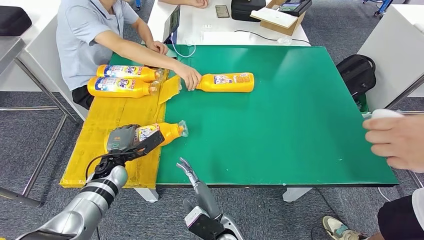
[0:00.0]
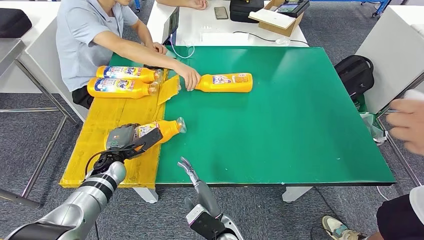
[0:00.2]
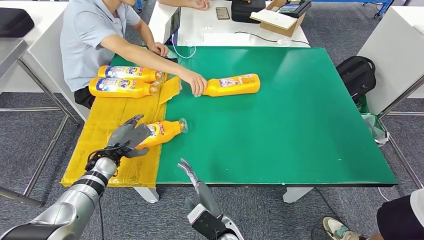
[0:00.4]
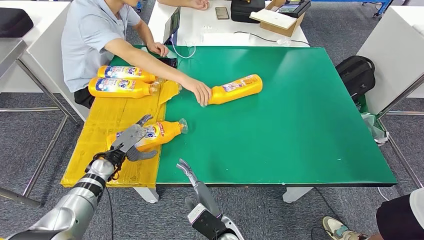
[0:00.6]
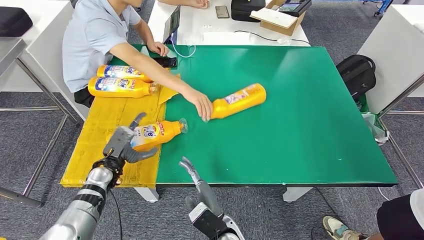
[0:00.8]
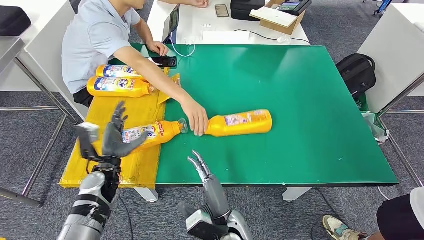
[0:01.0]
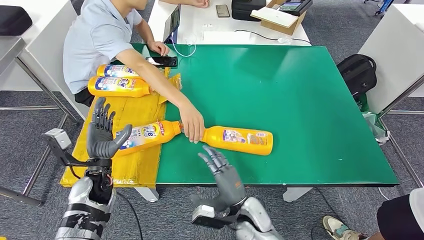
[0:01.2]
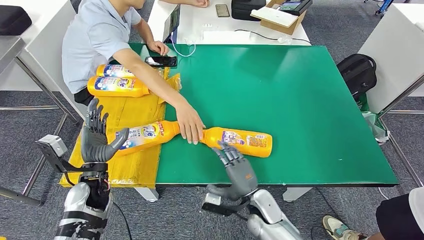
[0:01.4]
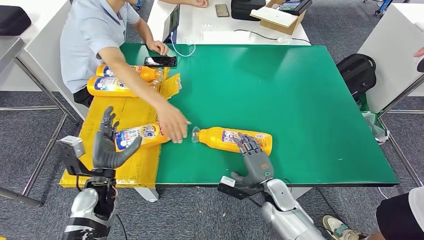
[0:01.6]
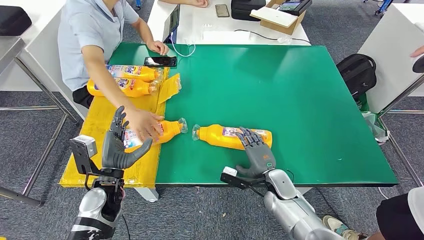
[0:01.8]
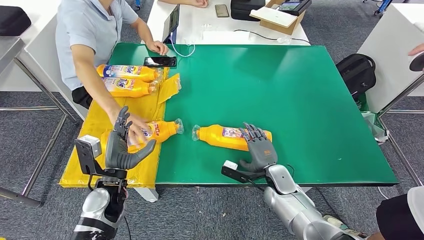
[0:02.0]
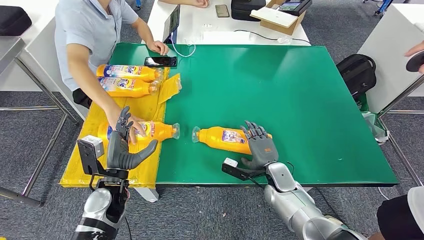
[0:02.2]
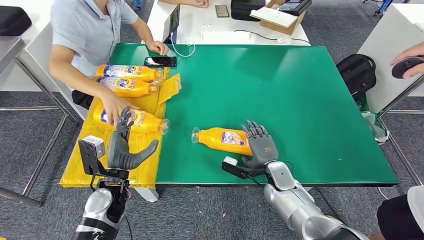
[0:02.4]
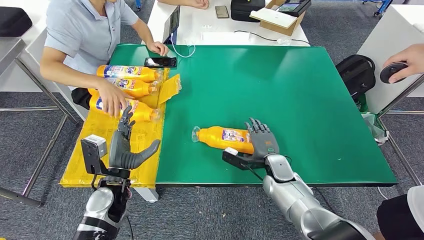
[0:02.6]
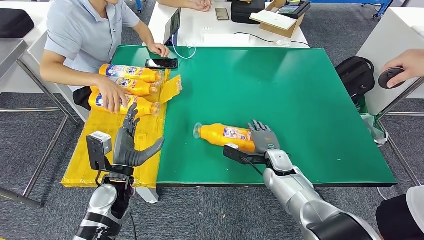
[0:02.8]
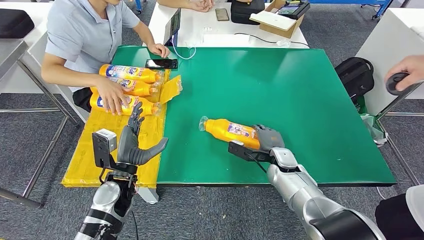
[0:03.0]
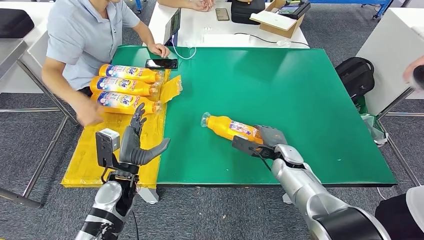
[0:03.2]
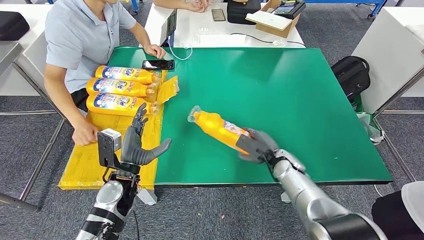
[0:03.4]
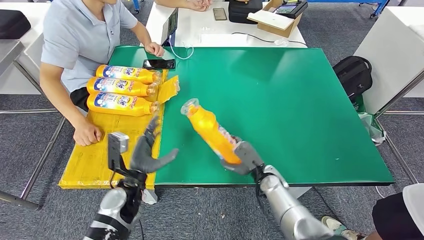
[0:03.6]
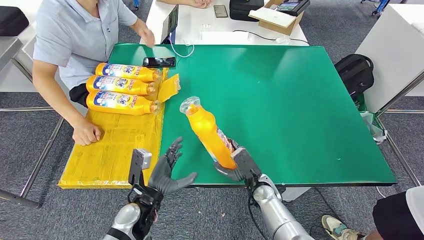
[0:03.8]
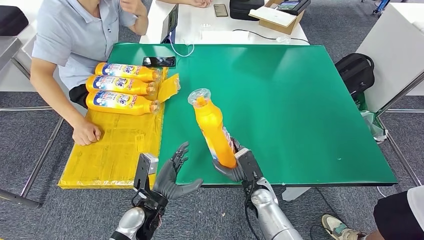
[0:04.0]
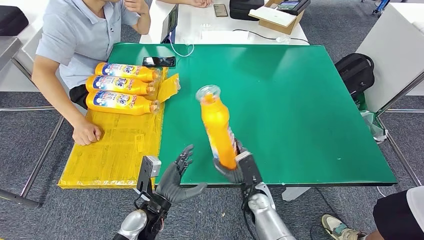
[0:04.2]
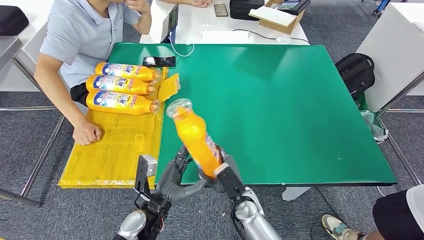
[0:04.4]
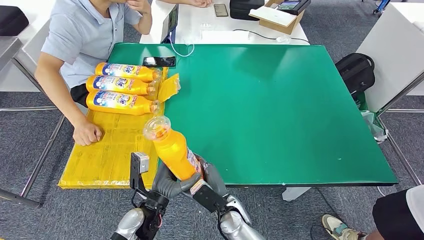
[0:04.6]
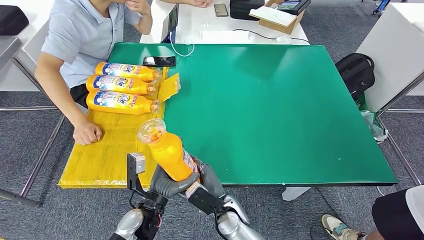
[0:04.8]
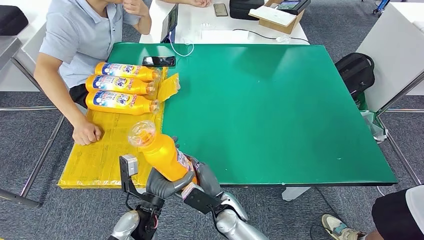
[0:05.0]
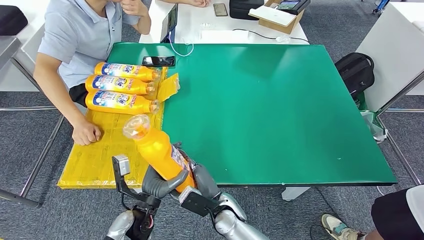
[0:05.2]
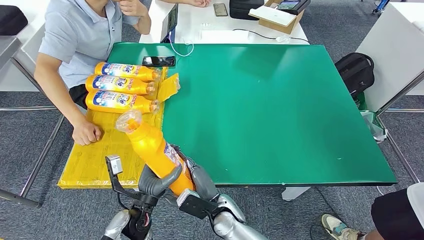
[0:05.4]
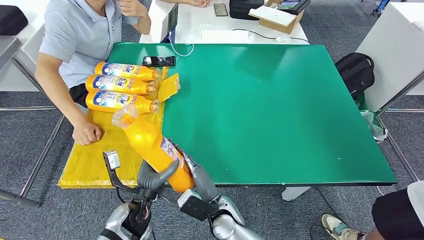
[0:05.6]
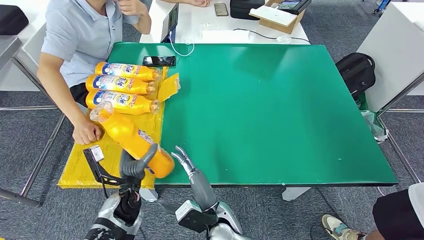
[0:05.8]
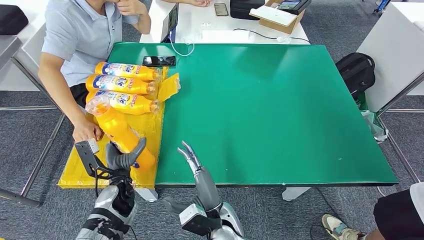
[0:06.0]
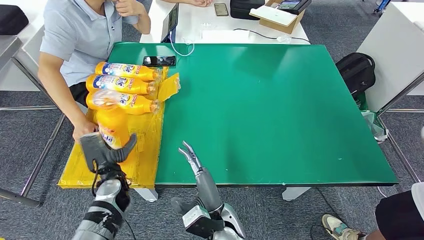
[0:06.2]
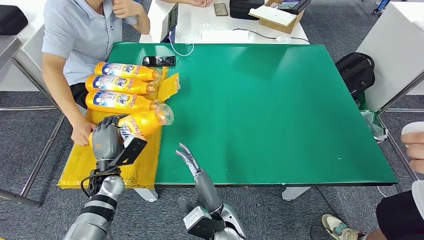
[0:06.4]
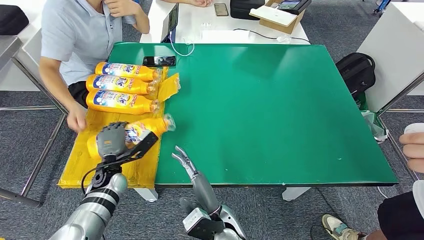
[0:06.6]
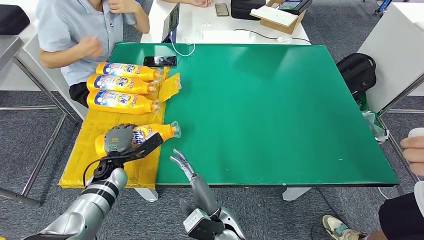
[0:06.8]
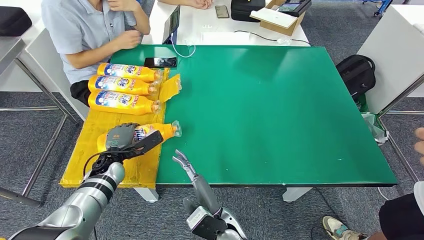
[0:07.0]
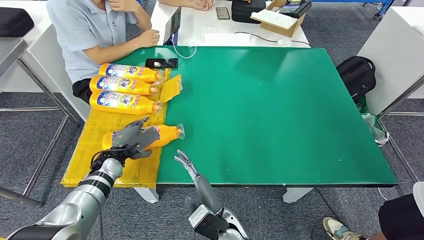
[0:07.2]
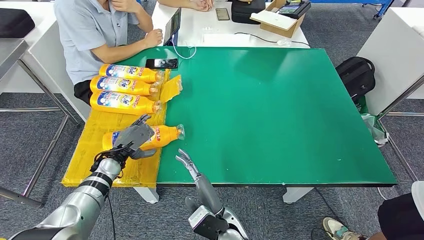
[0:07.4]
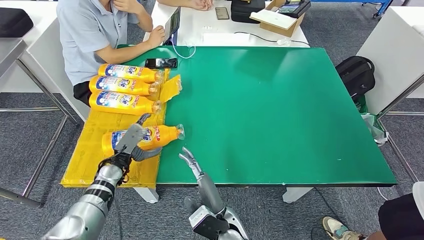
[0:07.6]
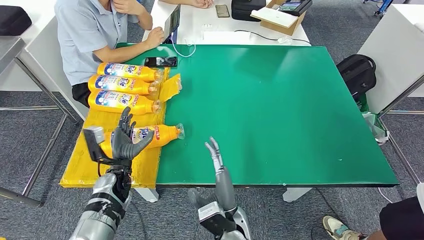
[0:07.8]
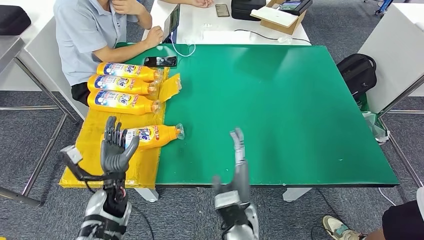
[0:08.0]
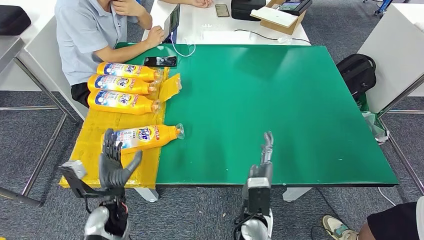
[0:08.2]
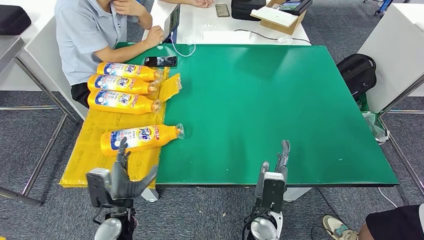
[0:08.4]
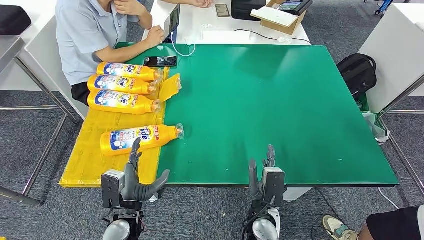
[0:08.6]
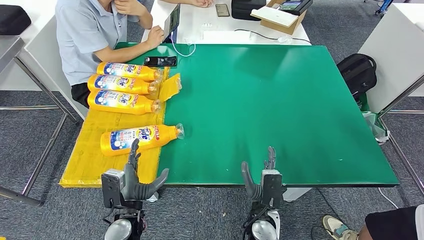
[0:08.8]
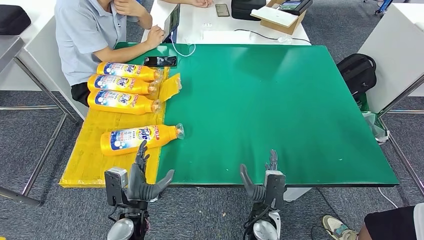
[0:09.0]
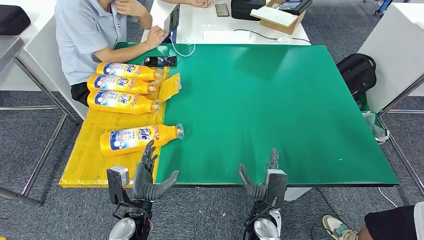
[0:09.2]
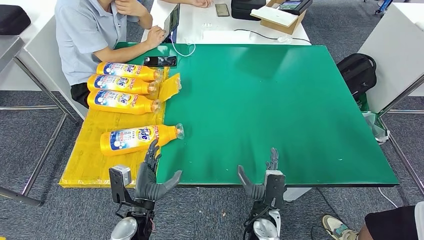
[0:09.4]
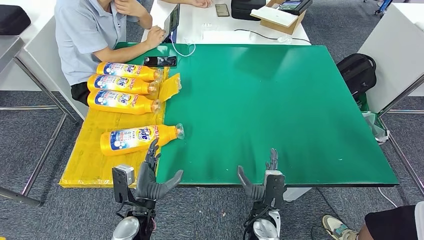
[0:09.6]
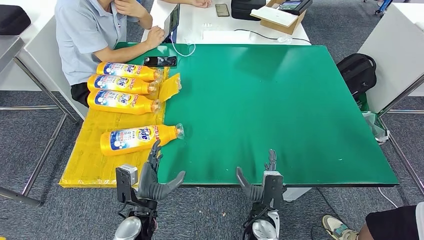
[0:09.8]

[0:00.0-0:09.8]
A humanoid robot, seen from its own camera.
Step, 0:00.0 to 0:02.0: Flip the fast-moving consumer goods bottle to the front side.
Step, 0:03.4 to 0:05.2: Pick up the fast-moving consumer goods bottle from the table.
Step, 0:05.4 to 0:09.8: Flip the fast-moving consumer goods bottle to the front side.
0:04.2 to 0:05.6: The right hand is displaced to the left by approximately 10 cm.
0:08.4 to 0:09.8: The left hand is displaced to the right by approximately 5 cm.

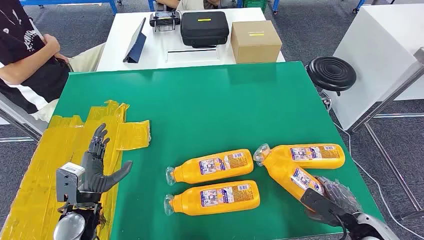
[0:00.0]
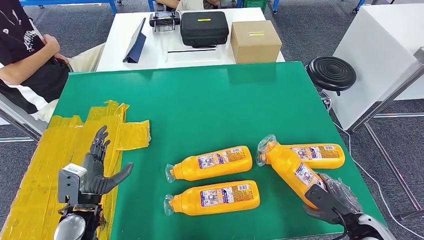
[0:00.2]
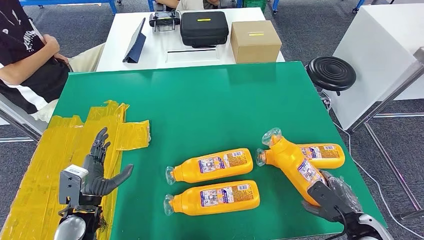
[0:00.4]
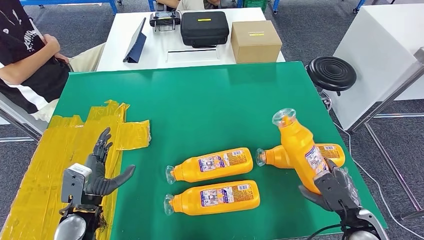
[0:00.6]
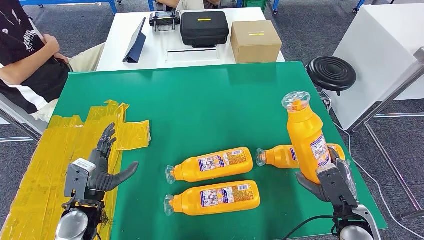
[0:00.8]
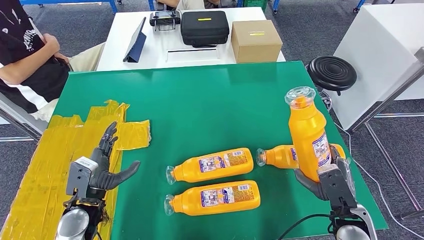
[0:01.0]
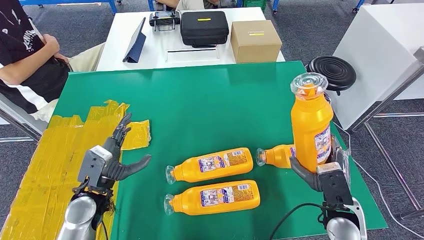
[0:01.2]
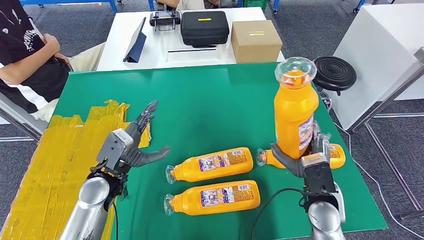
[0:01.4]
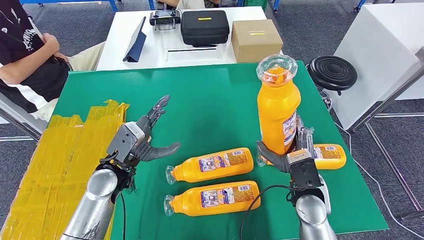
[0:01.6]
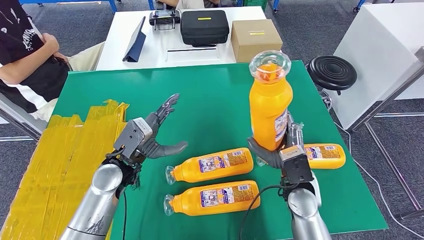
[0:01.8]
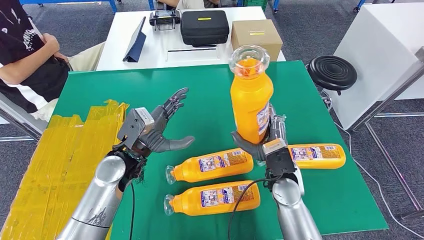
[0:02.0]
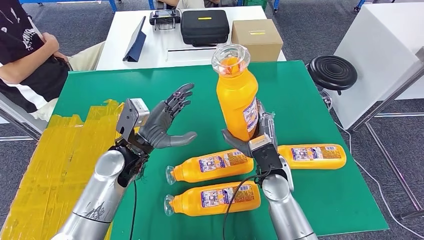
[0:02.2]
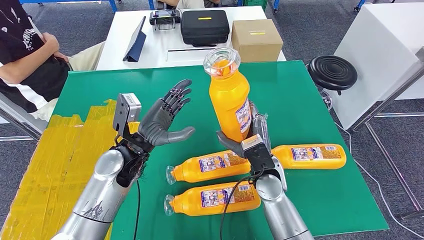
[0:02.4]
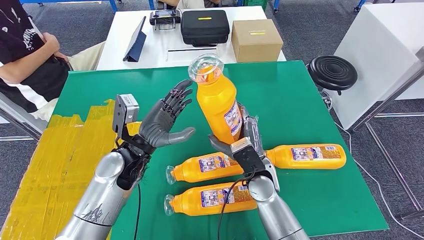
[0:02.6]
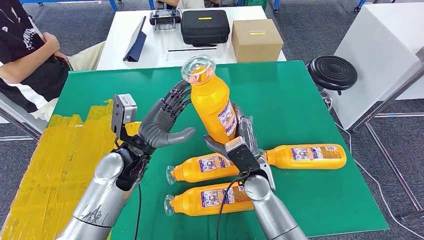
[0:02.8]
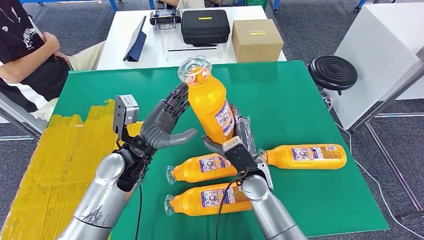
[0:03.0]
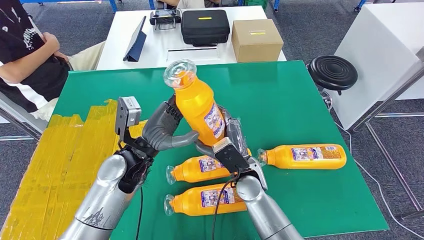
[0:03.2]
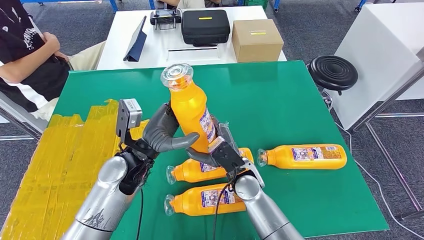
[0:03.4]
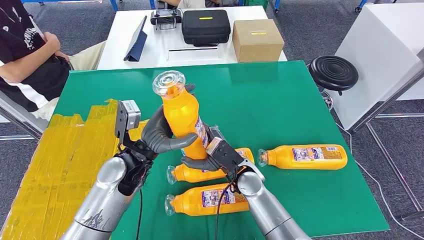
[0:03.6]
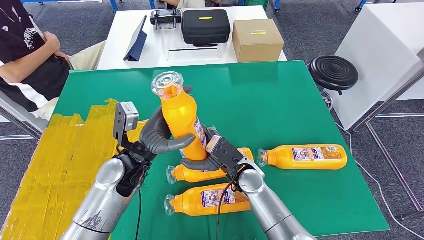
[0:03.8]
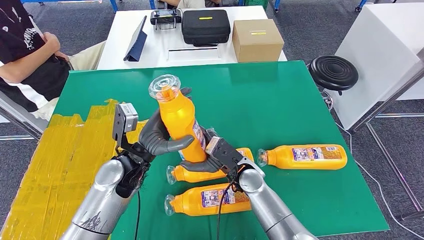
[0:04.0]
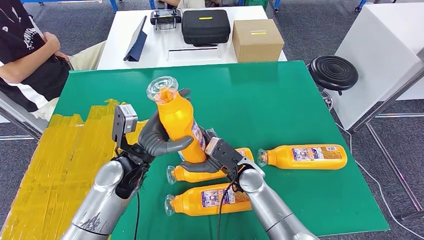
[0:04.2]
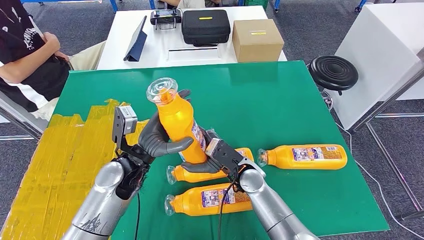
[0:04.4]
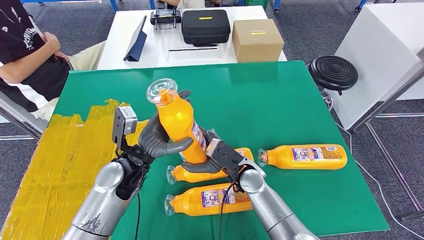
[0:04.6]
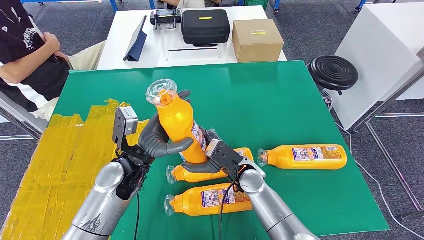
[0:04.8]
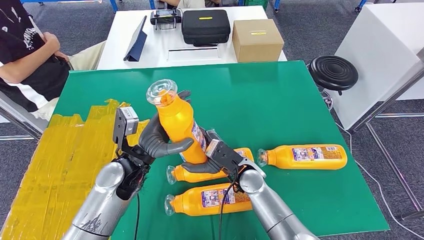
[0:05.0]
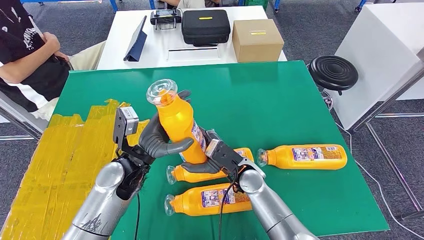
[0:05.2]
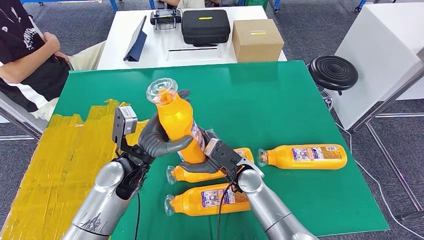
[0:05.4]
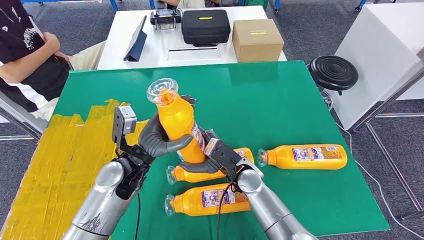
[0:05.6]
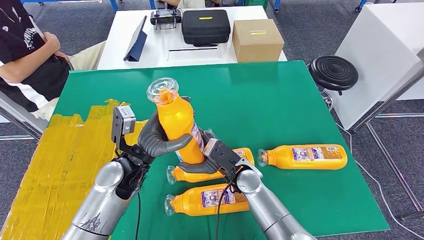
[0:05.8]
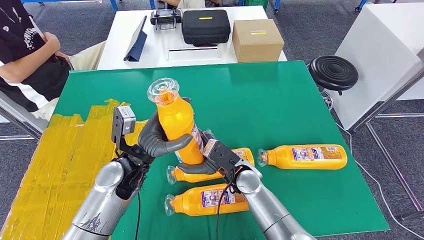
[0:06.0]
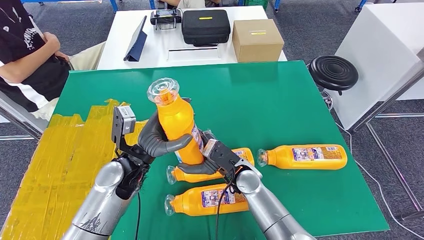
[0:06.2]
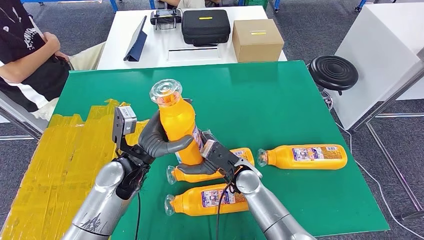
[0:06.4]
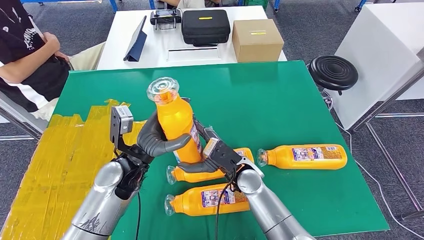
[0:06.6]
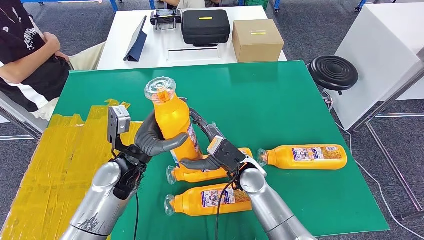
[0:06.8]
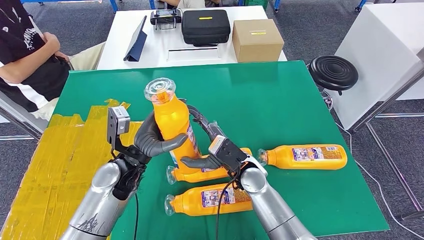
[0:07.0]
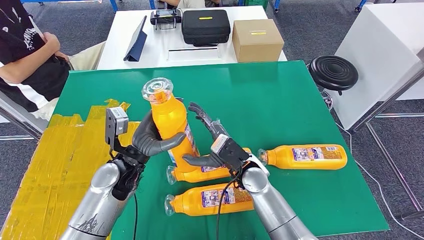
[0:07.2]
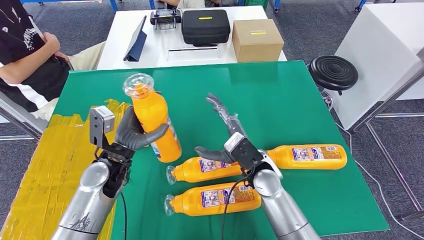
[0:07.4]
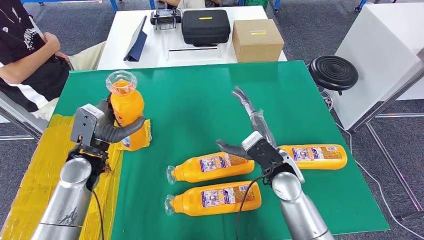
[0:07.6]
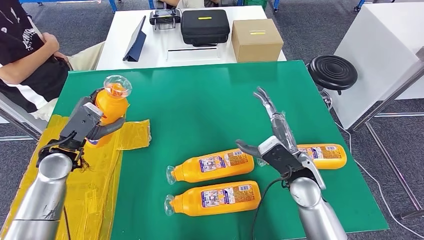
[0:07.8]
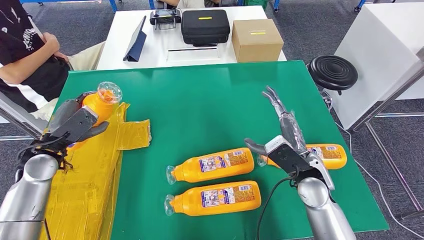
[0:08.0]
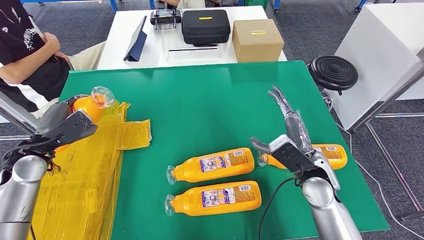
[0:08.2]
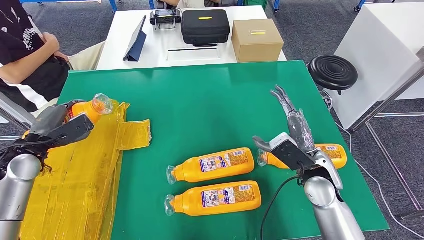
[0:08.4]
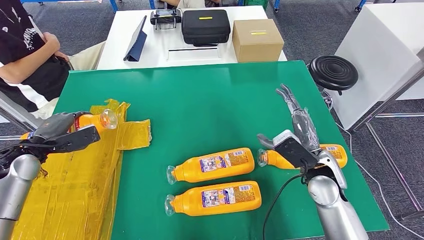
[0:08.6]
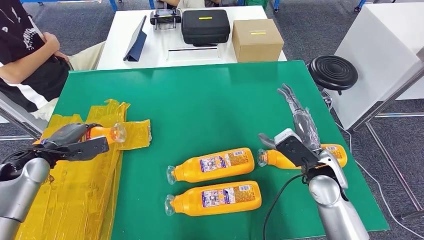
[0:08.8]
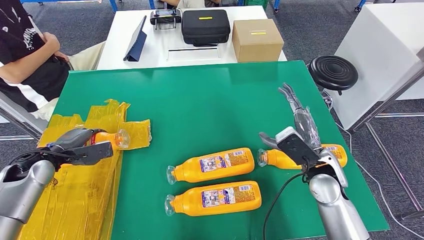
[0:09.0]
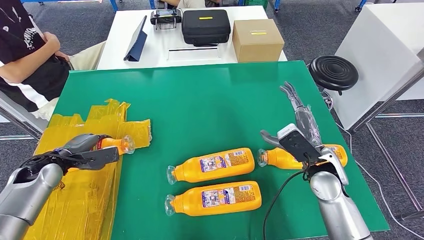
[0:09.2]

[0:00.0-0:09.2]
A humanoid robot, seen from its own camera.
Step, 0:00.0 to 0:01.8: Take the fast-moving consumer goods bottle from the table.
0:04.6 to 0:06.2: Neither hand changes place.
